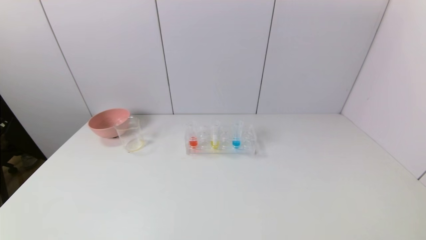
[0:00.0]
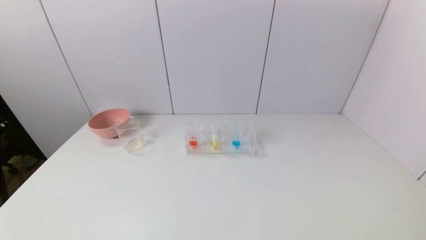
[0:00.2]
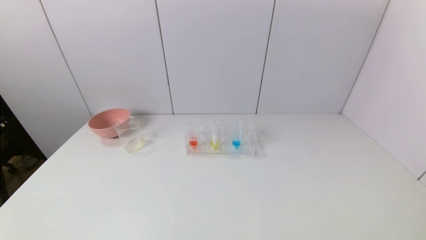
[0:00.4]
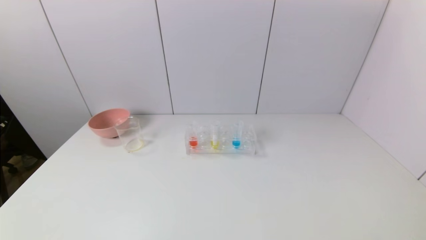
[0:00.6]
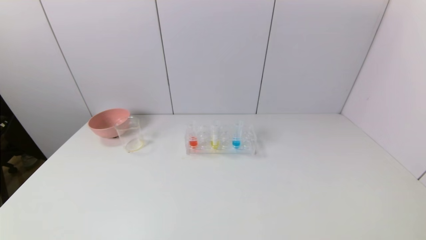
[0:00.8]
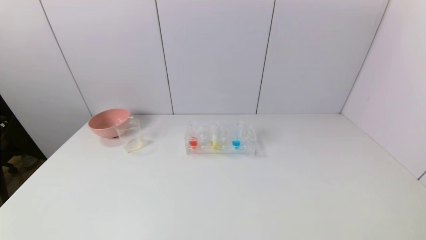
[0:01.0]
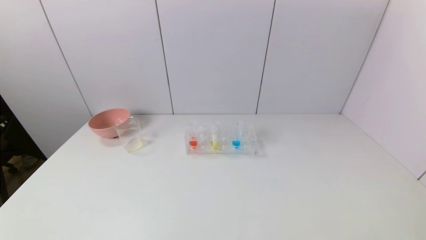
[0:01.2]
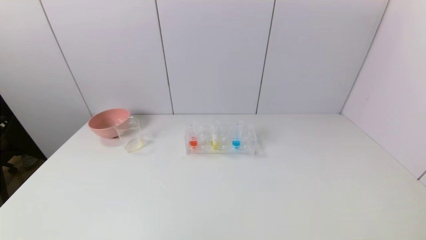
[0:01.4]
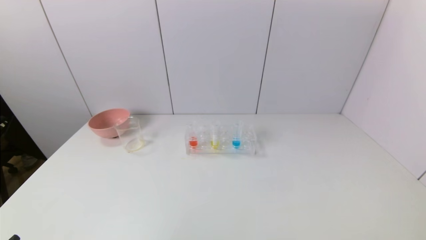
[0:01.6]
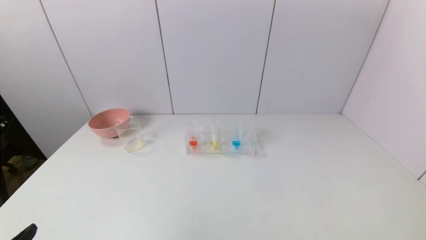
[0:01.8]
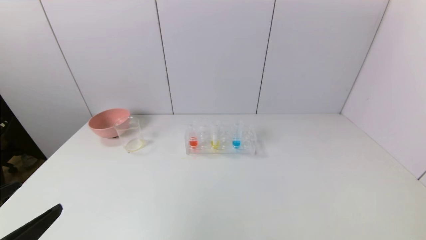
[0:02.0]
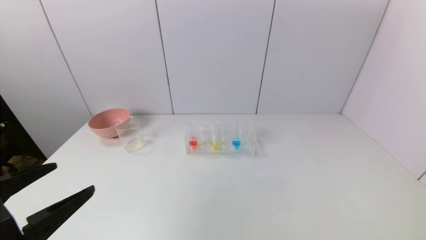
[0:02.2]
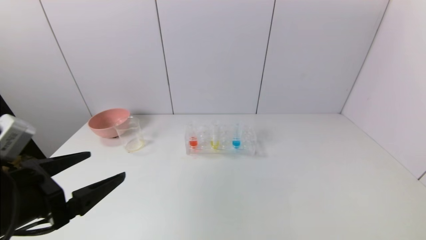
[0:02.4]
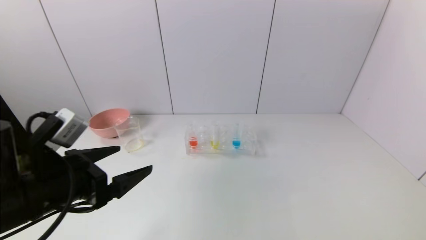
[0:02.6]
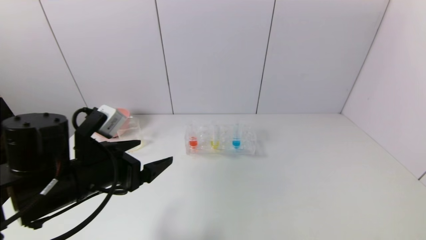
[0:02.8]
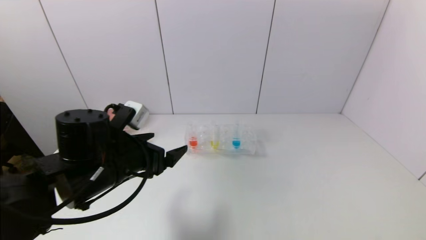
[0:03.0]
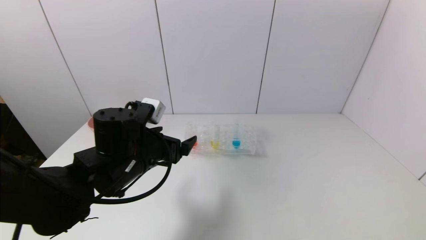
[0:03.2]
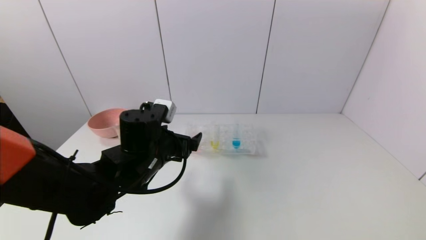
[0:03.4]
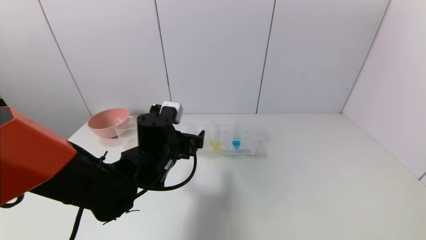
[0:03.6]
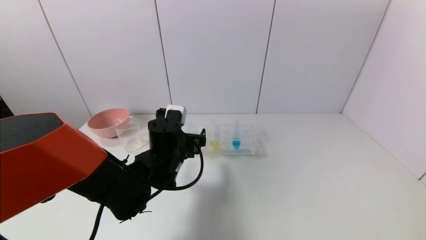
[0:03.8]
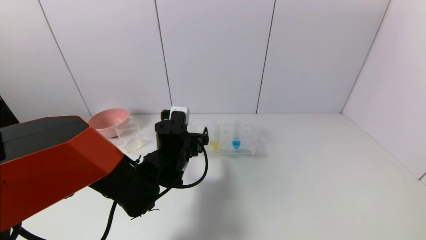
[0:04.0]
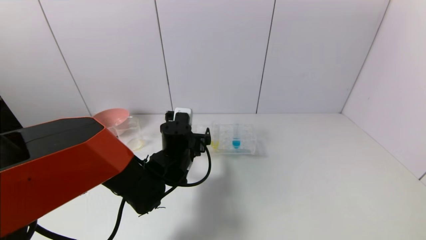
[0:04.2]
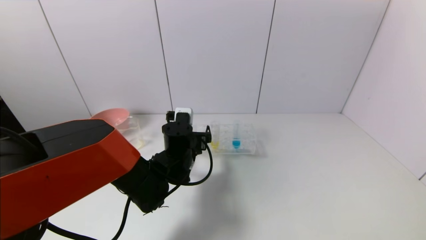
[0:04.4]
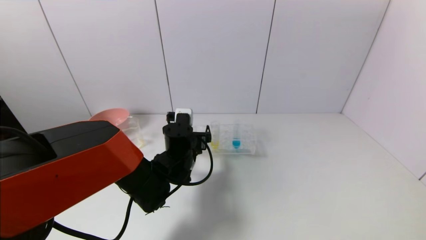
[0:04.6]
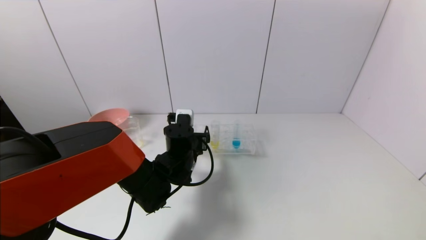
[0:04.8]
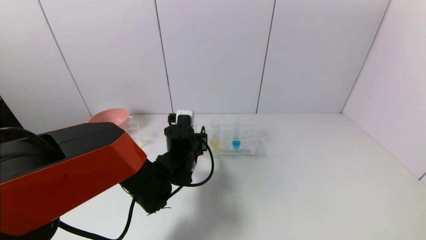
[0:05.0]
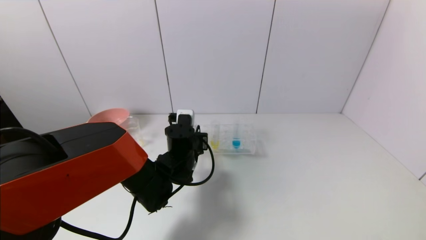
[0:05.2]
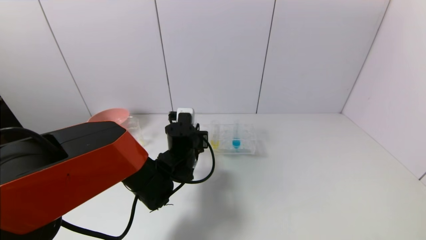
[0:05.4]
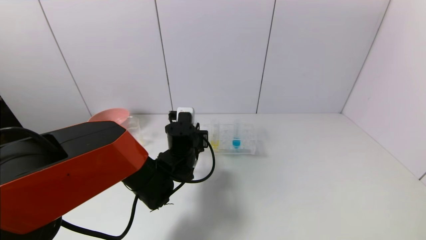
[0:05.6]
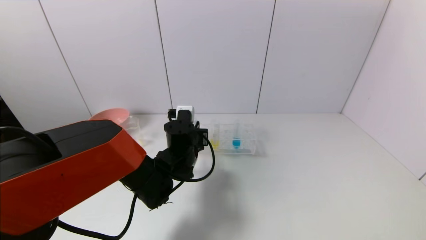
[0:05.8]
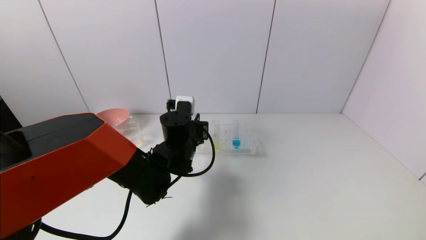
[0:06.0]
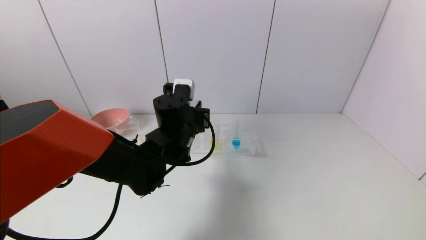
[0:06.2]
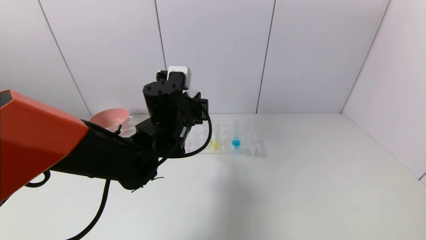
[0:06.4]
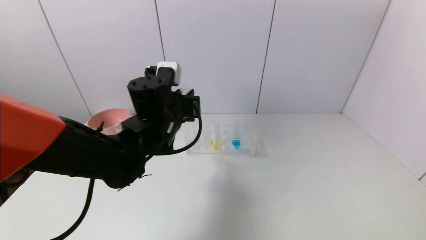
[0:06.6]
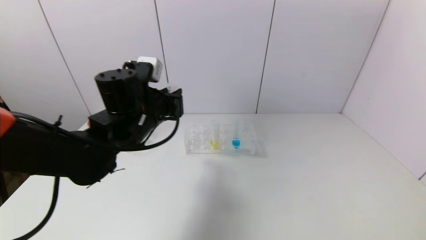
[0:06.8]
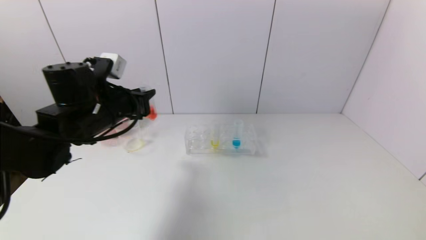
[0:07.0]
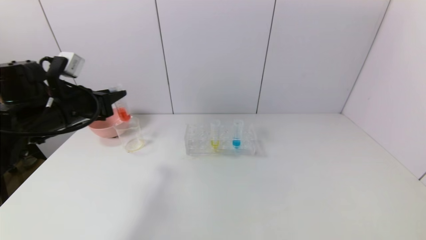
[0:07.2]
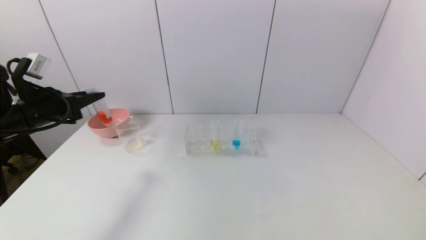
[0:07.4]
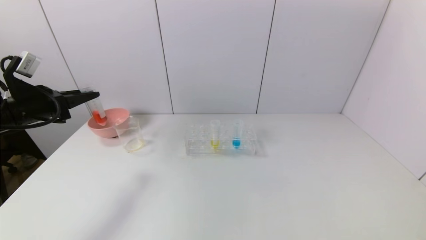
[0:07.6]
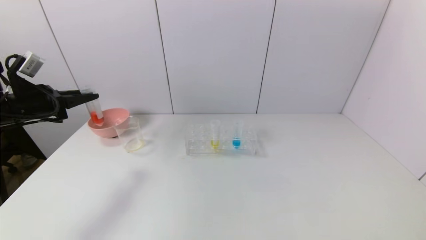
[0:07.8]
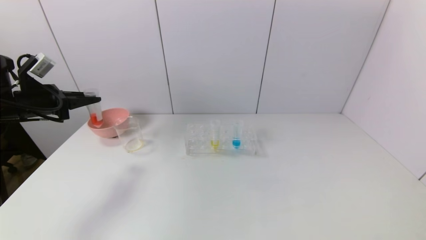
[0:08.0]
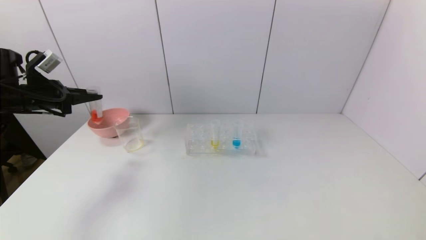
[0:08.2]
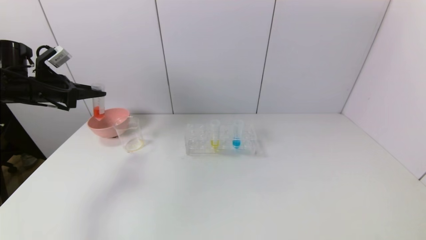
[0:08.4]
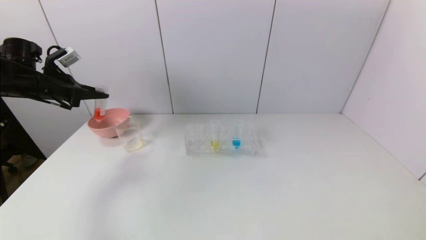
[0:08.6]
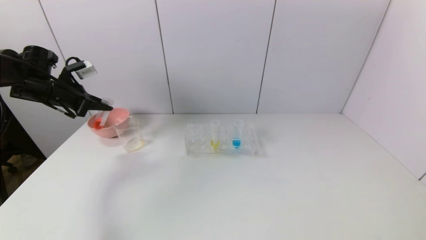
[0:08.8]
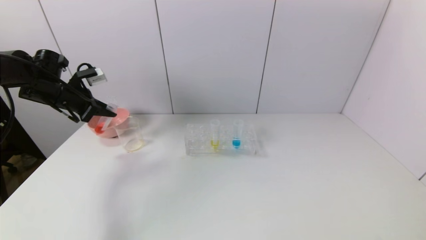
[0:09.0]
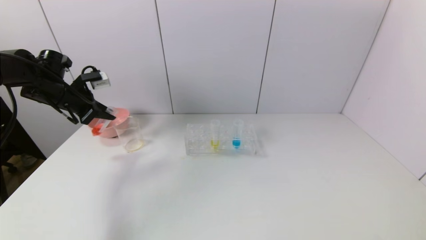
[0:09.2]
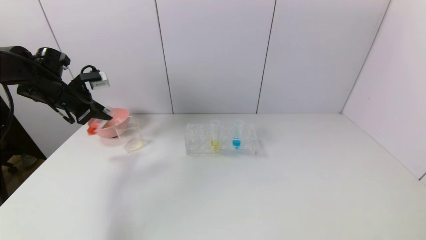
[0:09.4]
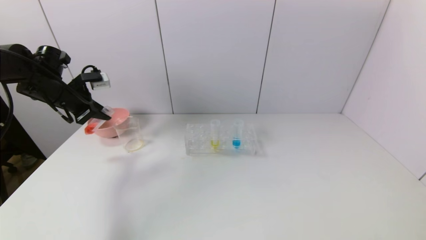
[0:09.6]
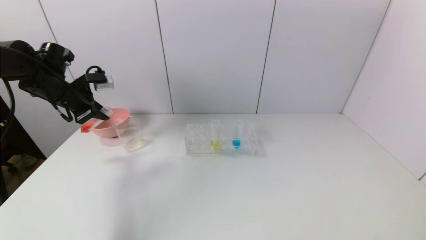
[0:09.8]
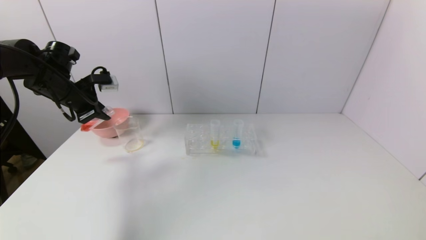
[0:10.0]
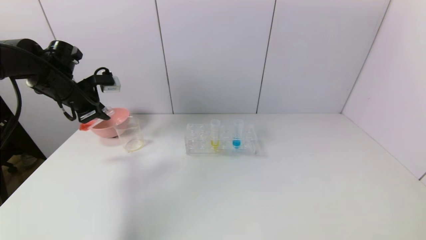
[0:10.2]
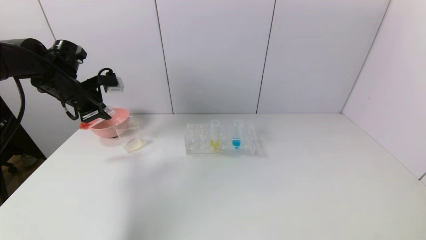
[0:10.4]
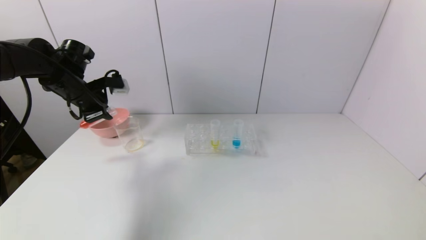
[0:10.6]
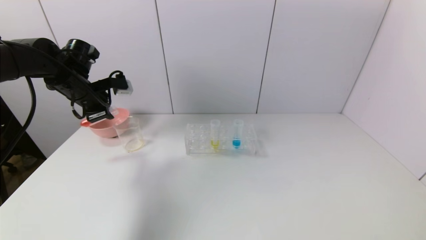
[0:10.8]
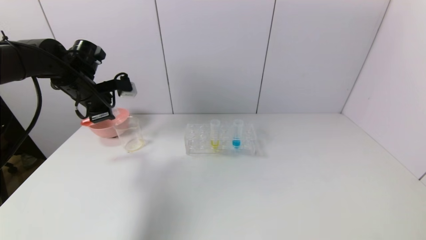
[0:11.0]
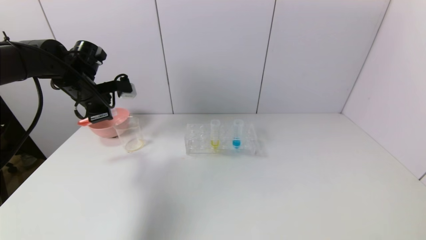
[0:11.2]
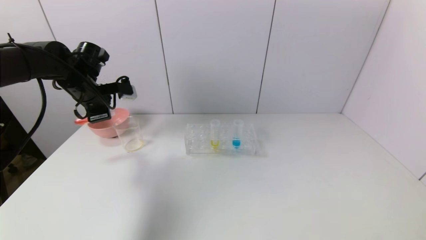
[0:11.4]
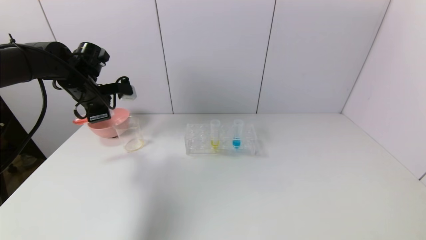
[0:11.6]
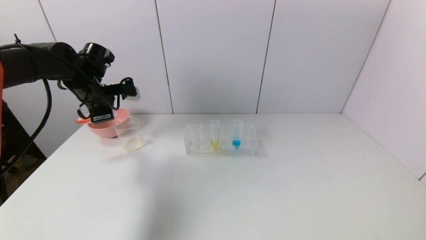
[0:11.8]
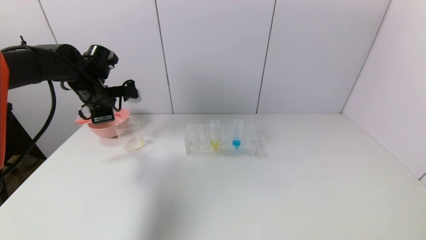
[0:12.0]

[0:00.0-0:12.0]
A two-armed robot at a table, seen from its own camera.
Task of the whole recording: pick up the test tube with yellow pigment and the test tube with red pigment by grippers and pour them into the beaker.
Step, 0:00.0 to 0:05.4: Grasp the red reagent with the left gripper.
0:01.6 to 0:03.0: The left gripper heads forward and to the right, covering approximately 25 cm.
0:03.0 to 0:04.4: The left gripper heads to the right, forward and downward, covering about 15 cm.
0:04.4 to 0:06.0: The left gripper closes.
0:06.0 to 0:07.6: The left gripper goes approximately 30 cm to the left.
0:07.6 to 0:09.0: The left gripper shifts about 10 cm forward.
0:10.4 to 0:12.0: The left gripper travels to the right by about 5 cm.

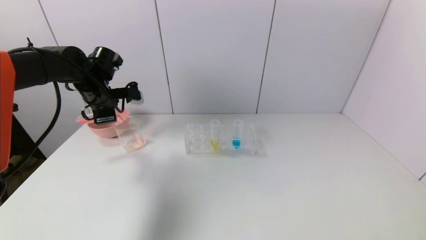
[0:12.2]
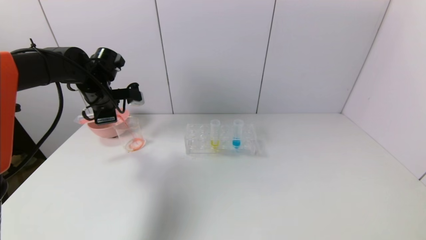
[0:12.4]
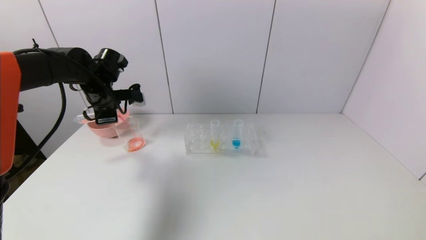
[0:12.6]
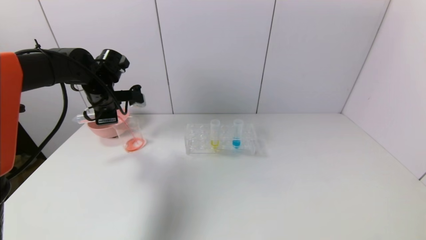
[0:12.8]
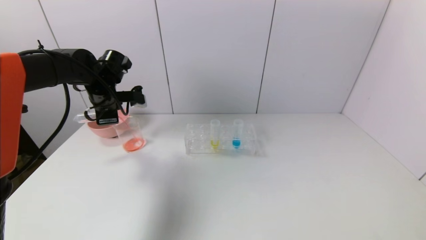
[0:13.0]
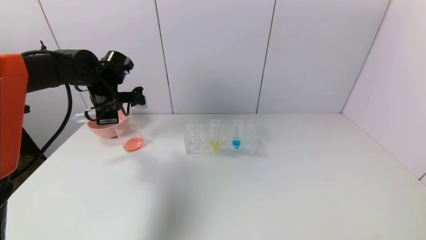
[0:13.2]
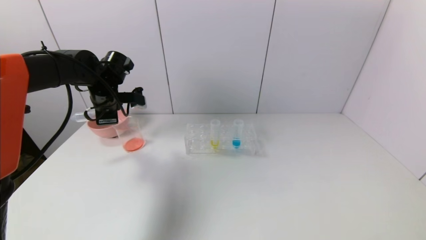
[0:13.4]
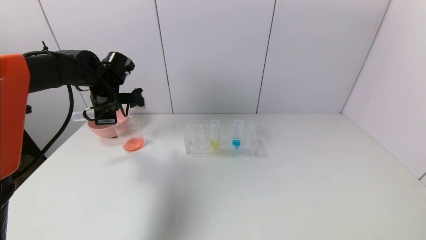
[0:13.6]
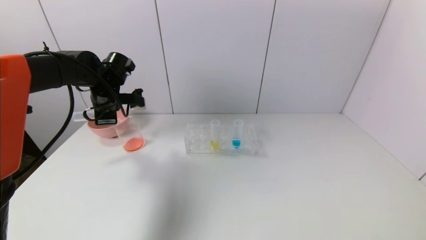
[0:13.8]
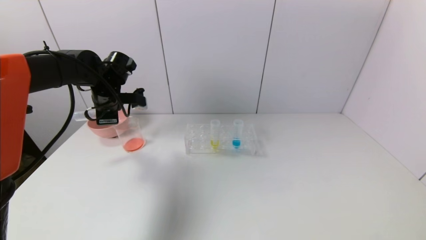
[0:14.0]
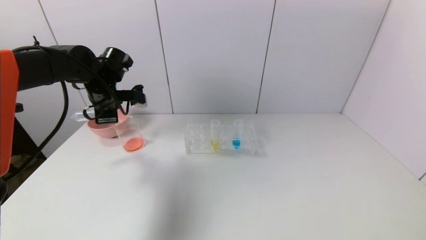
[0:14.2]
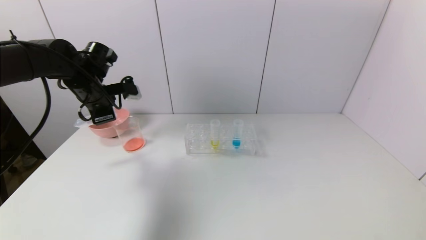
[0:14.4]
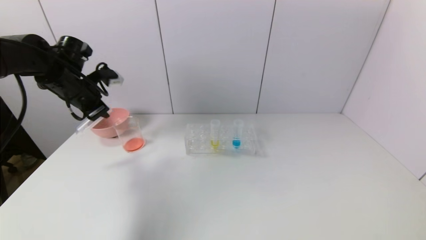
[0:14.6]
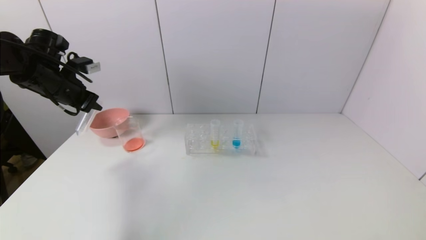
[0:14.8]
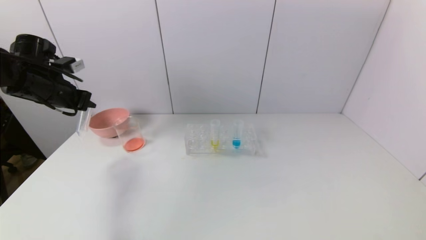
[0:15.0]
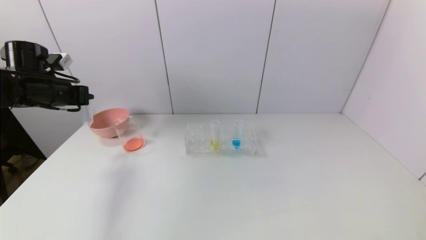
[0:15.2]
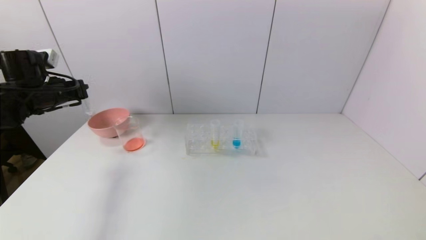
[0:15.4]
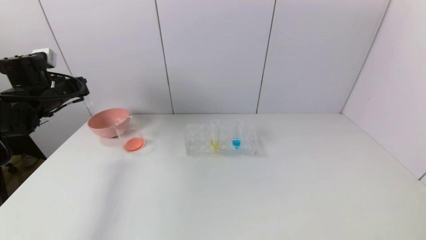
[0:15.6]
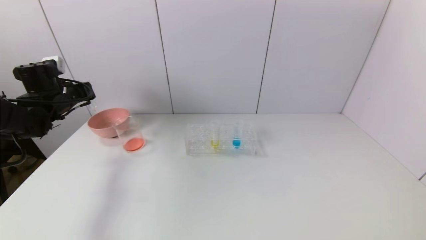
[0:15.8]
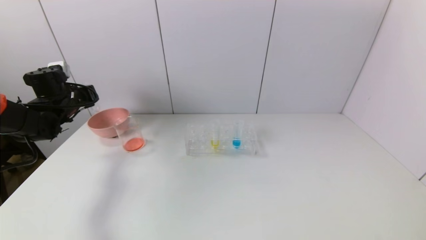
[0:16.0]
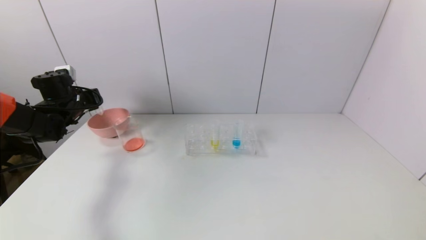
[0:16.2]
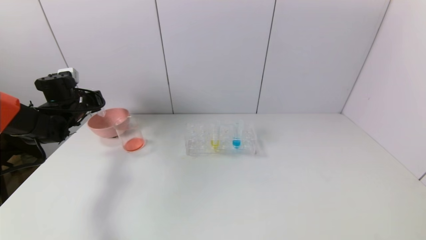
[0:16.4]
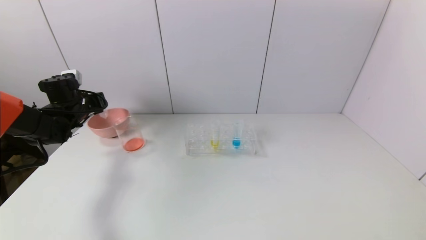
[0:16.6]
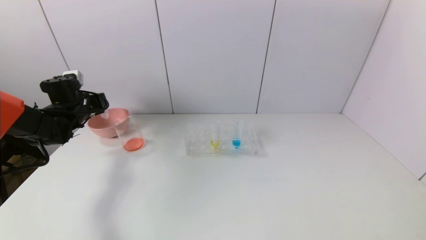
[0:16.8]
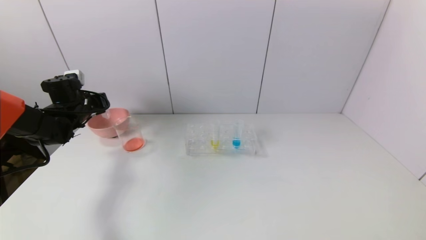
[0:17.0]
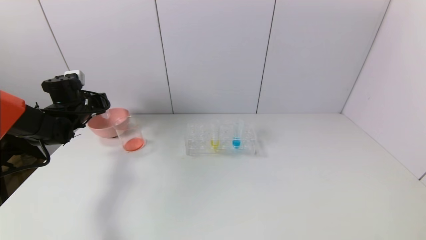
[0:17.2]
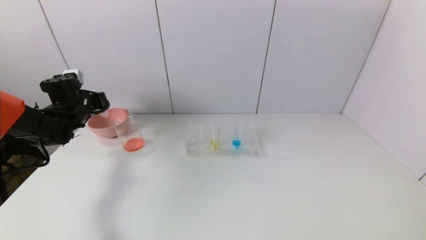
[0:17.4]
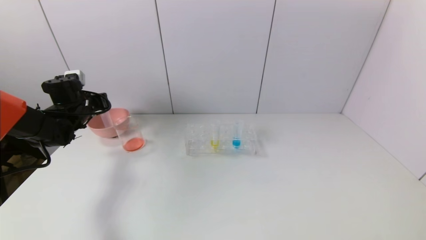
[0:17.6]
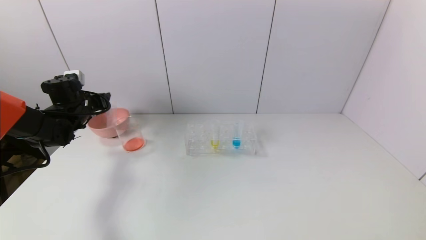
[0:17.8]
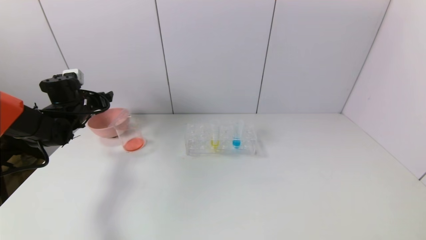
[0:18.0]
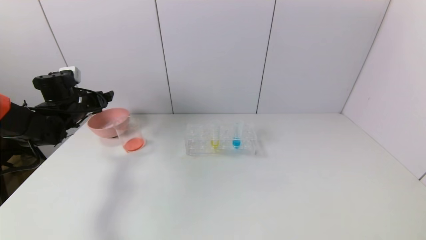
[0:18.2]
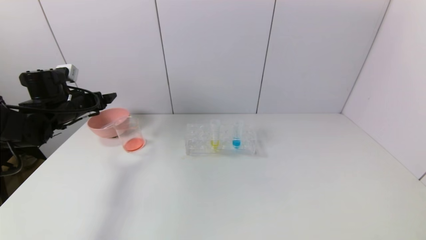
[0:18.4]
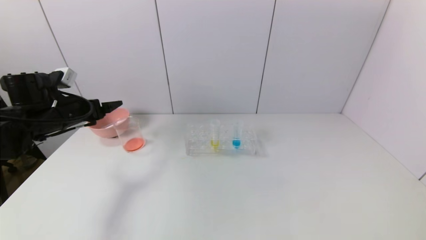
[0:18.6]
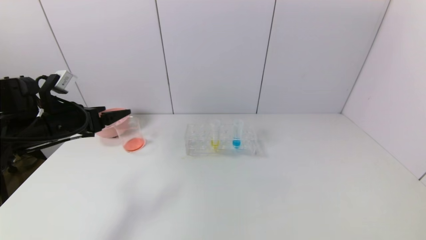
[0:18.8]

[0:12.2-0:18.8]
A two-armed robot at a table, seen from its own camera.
Task of the whole recording: pick up the test tube with yellow pigment and the test tube with red pigment by grippers and pour them into the beaker.
Step, 0:14.0 to 0:18.0: Place the test tube into the pink bowl with the left gripper.
0:12.2 to 0:13.8: The grippers stay close to where they were, moving slightly.
0:13.8 to 0:15.4: The left gripper is displaced to the left by approximately 10 cm.
0:15.4 to 0:17.2: The left gripper is displaced downward and forward by approximately 10 cm.
0:17.2 to 0:18.8: The left gripper travels backward by some 15 cm, and opens up.
